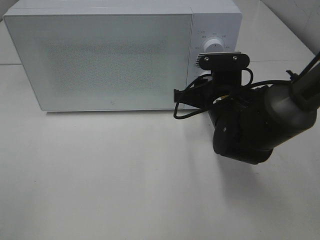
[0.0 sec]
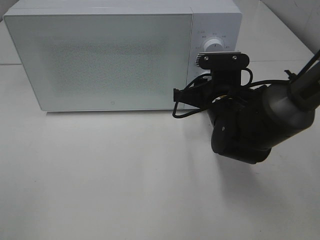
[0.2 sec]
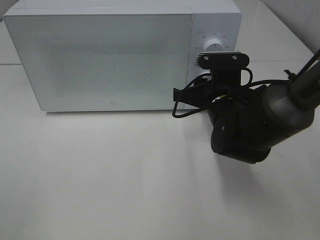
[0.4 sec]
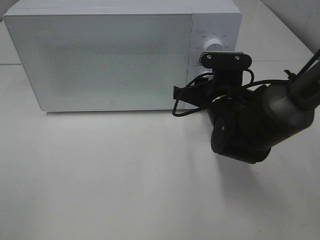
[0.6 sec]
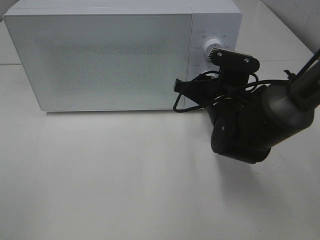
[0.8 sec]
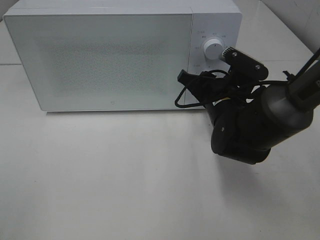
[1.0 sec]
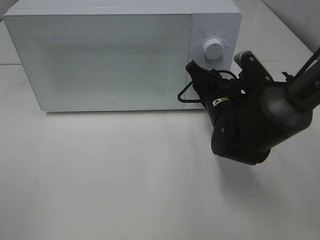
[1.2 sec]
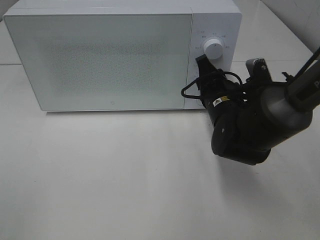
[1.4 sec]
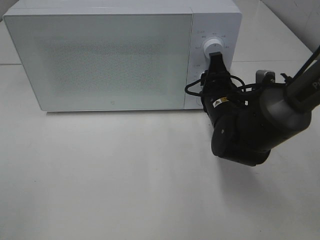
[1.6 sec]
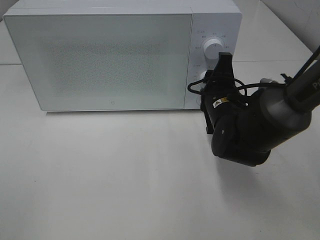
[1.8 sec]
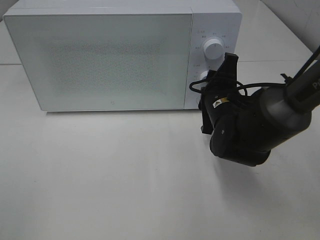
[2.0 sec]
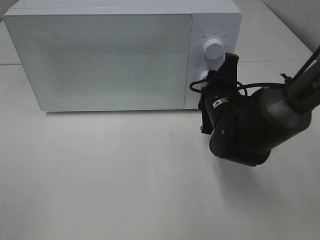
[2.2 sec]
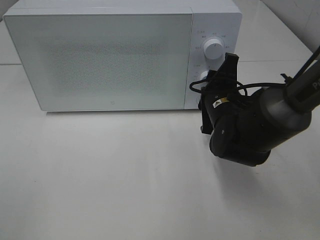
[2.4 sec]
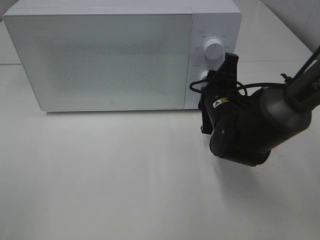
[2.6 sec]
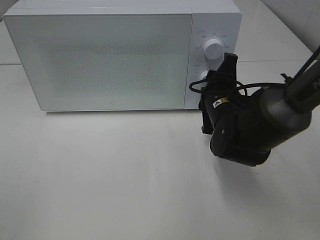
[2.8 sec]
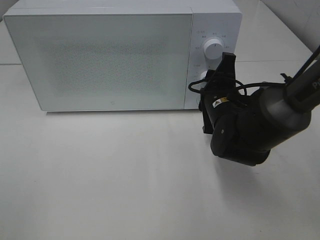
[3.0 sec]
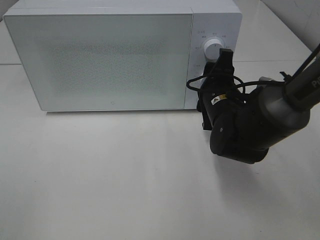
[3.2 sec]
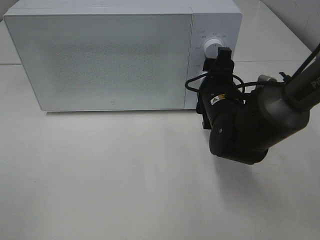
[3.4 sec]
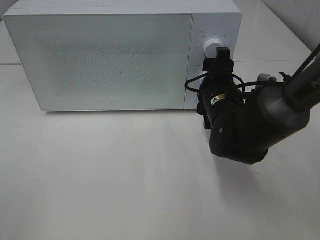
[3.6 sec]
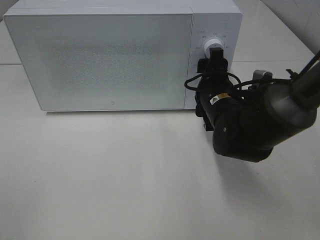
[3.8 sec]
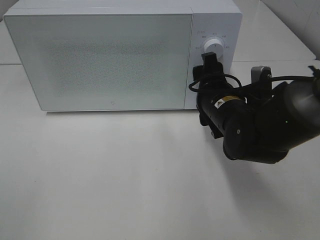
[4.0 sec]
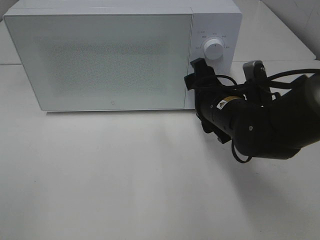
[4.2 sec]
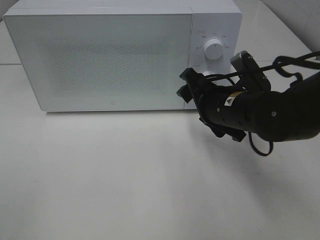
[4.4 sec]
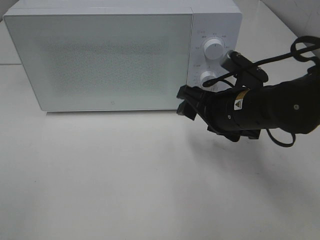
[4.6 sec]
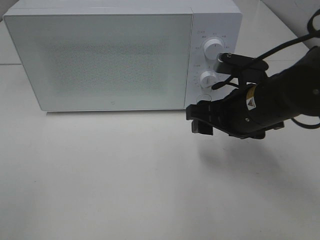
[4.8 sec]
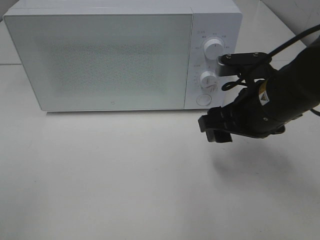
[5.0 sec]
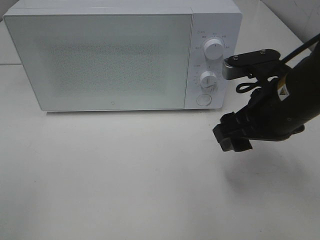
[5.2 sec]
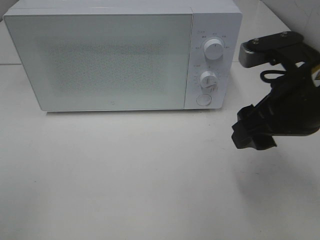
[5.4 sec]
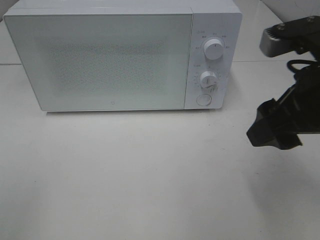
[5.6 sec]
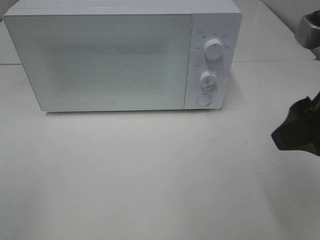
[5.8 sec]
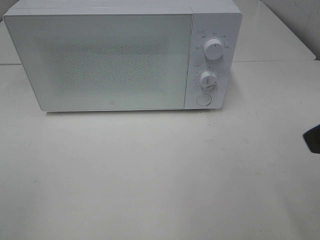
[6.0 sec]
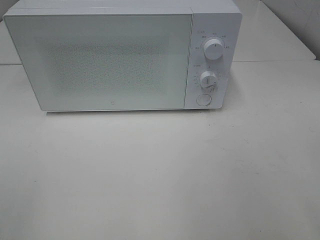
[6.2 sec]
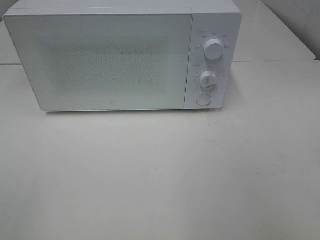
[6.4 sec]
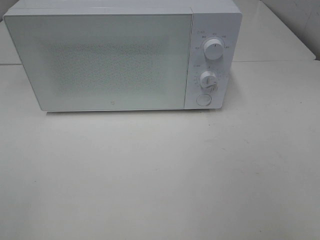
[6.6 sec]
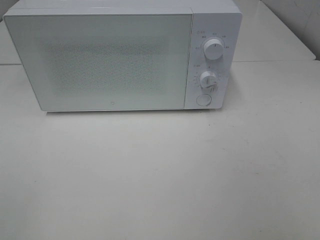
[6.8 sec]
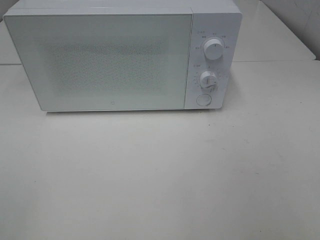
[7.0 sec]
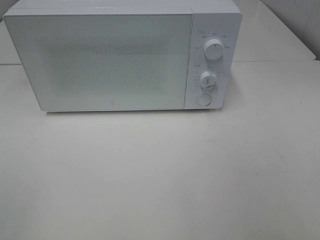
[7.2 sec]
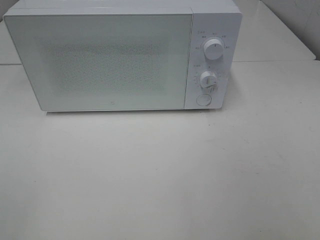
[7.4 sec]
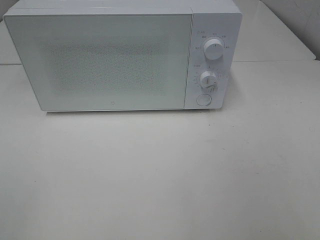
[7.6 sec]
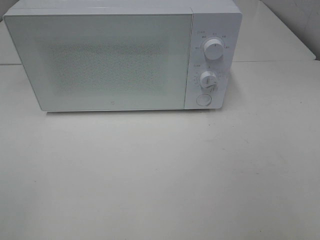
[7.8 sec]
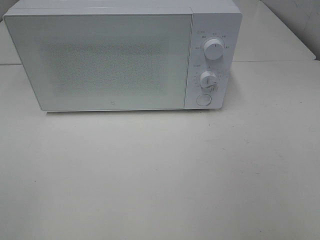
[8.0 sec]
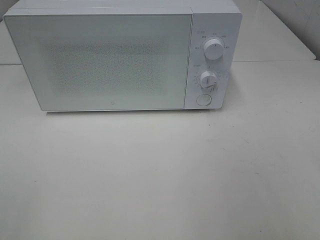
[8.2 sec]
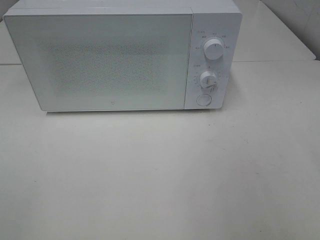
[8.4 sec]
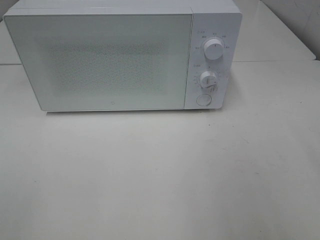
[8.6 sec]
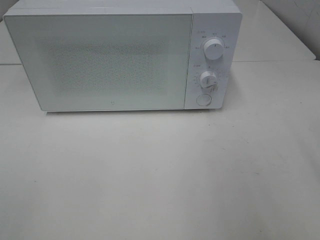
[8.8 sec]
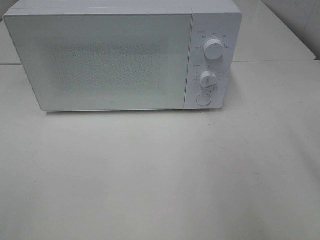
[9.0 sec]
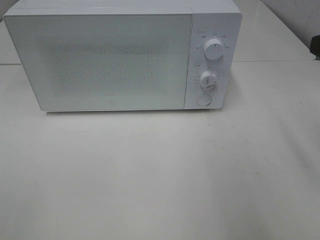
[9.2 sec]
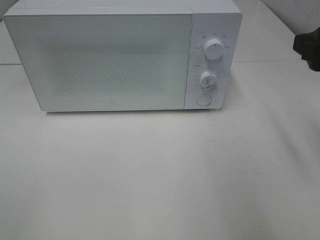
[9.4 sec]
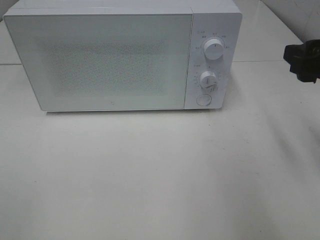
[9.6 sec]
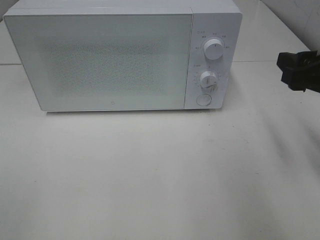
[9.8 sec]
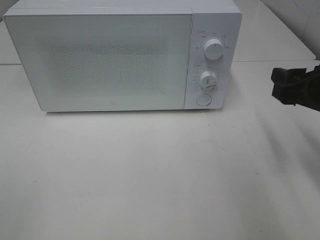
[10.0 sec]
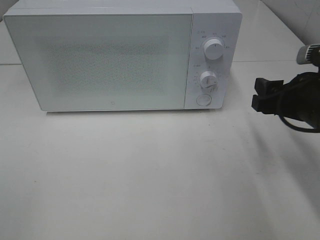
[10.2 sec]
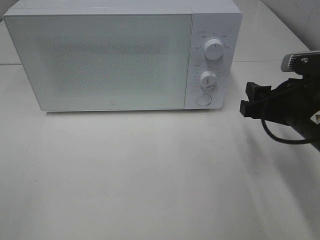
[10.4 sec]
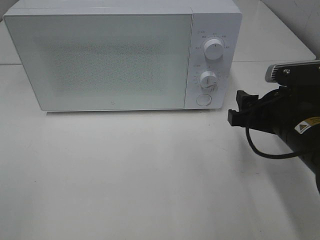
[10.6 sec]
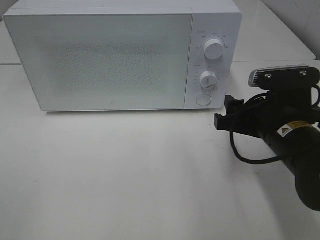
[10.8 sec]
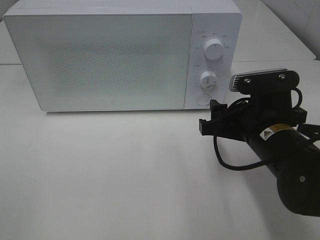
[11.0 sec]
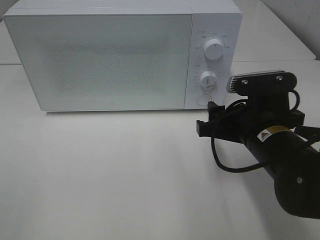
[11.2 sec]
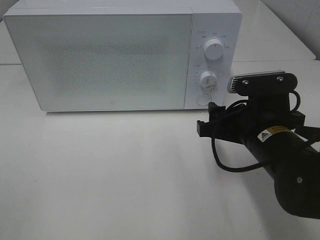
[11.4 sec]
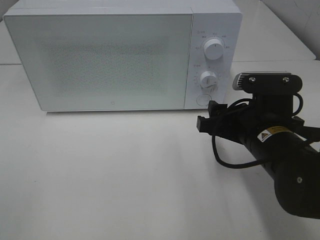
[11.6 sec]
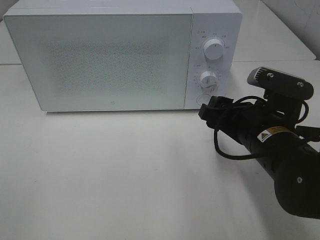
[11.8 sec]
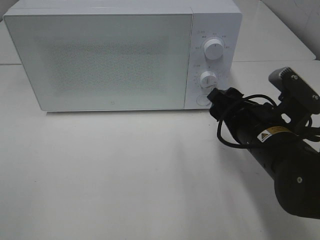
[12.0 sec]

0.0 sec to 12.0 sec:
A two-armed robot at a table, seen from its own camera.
Task of the whole recording: Heat Sandwich.
Step, 0.0 sec to 4.0 sec: Right hand: twist timer button.
1.6 sec to 3.0 sec: There are only small adjustments of the grippers.
4.4 sec to 6.0 sec: The right gripper goes about 25 cm upward, backward and to the right.
9.0 sec to 10.4 sec: The right gripper shifts approximately 15 cm downward and forward.
10.4 sec to 12.0 sec: The right gripper travels to the left by approximately 5 cm.

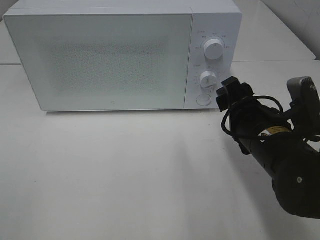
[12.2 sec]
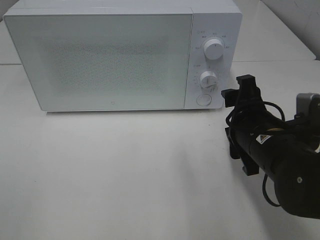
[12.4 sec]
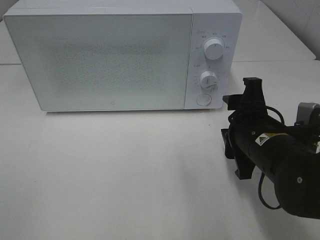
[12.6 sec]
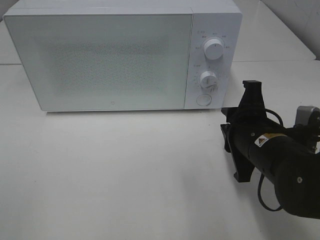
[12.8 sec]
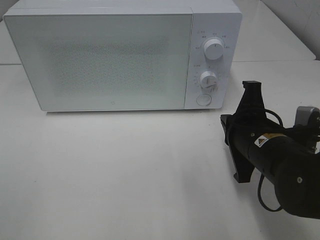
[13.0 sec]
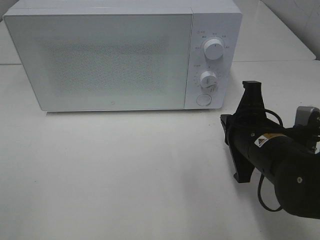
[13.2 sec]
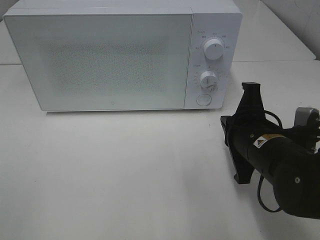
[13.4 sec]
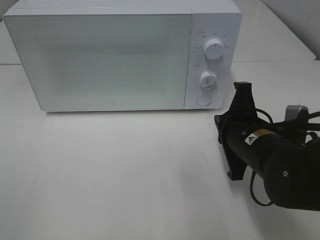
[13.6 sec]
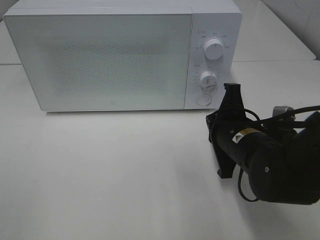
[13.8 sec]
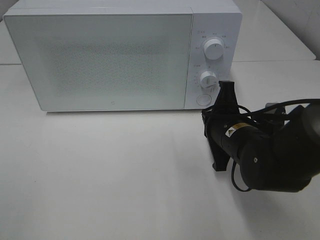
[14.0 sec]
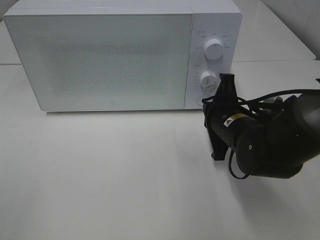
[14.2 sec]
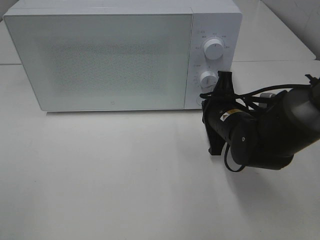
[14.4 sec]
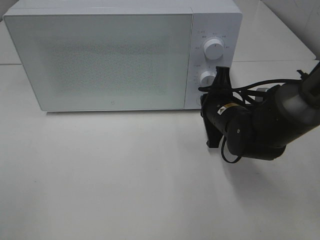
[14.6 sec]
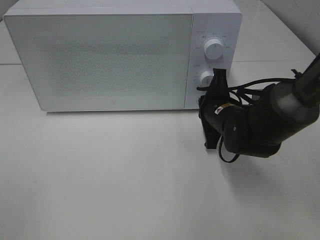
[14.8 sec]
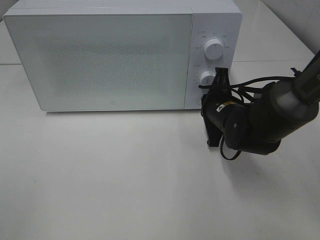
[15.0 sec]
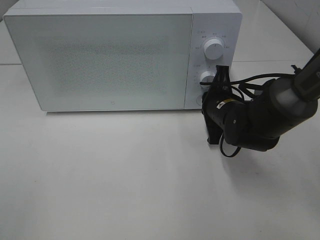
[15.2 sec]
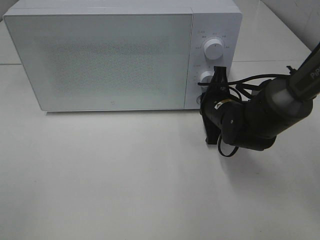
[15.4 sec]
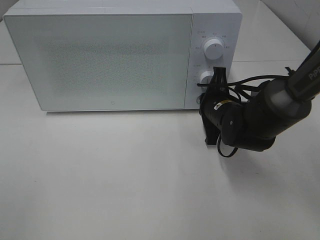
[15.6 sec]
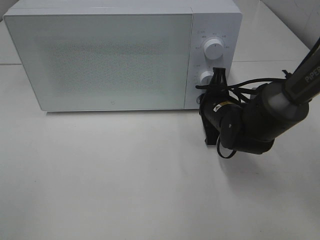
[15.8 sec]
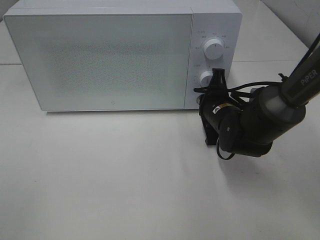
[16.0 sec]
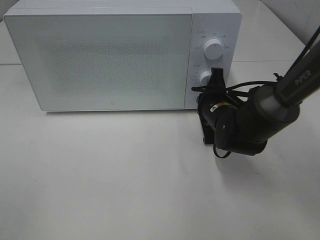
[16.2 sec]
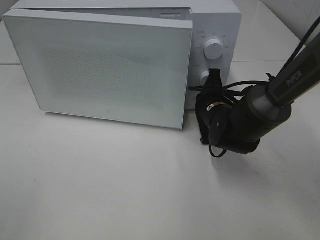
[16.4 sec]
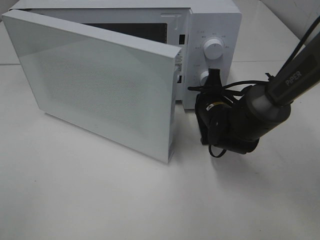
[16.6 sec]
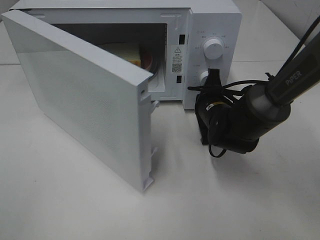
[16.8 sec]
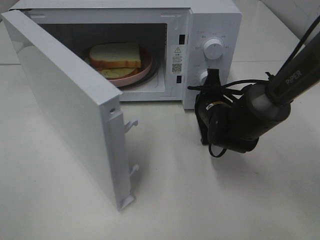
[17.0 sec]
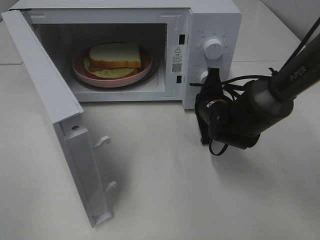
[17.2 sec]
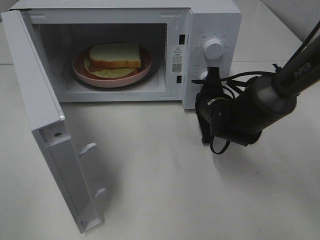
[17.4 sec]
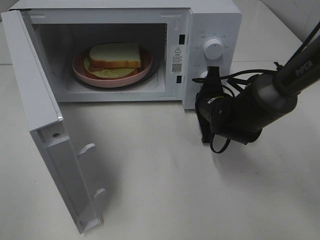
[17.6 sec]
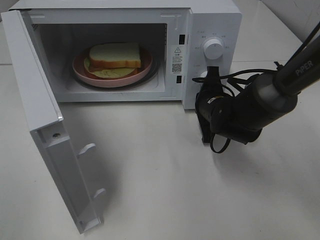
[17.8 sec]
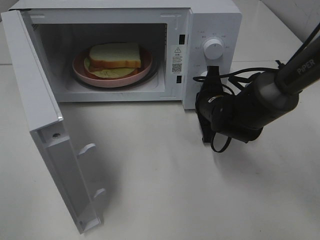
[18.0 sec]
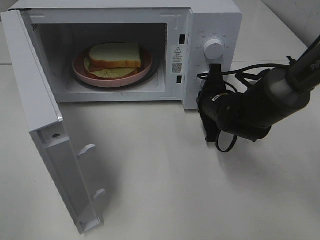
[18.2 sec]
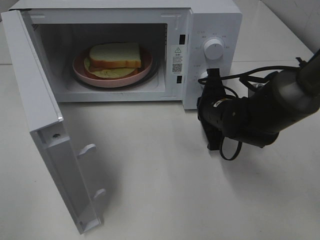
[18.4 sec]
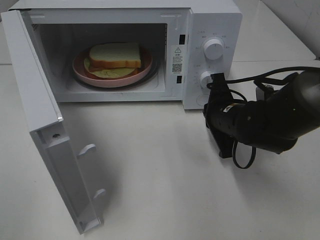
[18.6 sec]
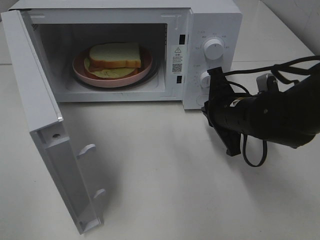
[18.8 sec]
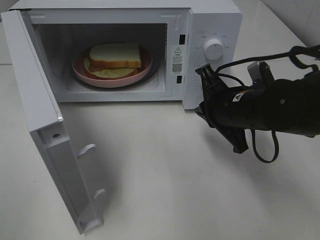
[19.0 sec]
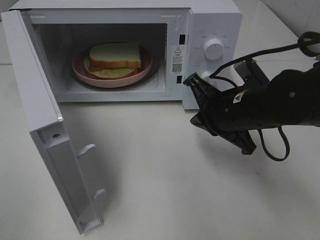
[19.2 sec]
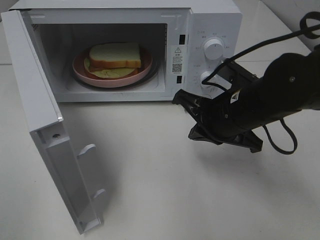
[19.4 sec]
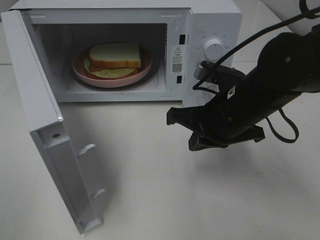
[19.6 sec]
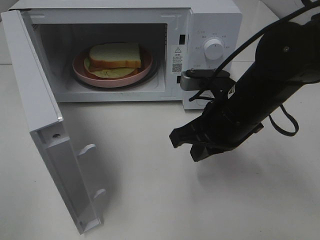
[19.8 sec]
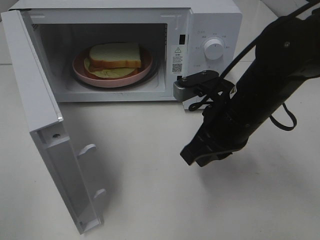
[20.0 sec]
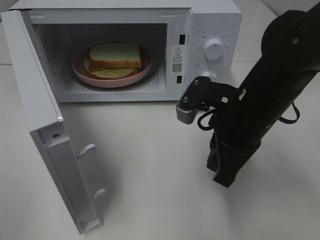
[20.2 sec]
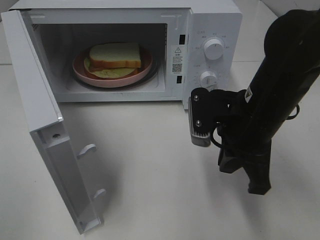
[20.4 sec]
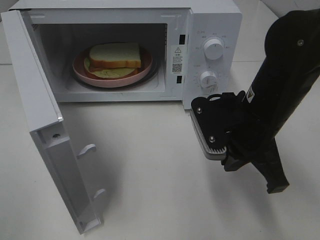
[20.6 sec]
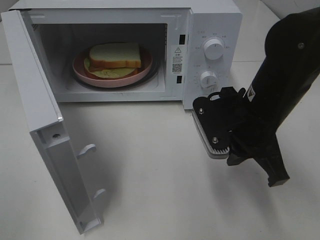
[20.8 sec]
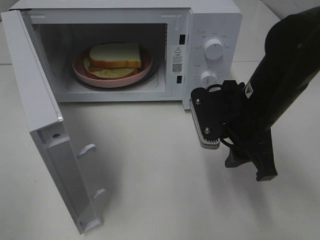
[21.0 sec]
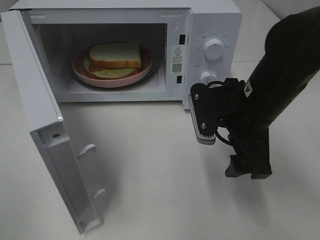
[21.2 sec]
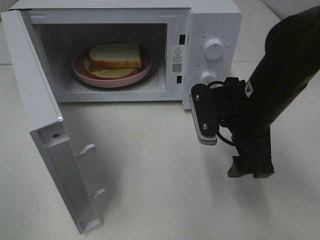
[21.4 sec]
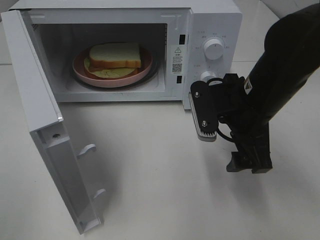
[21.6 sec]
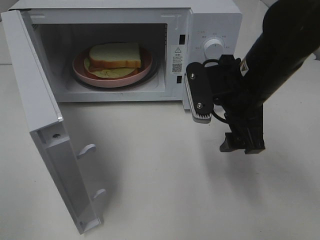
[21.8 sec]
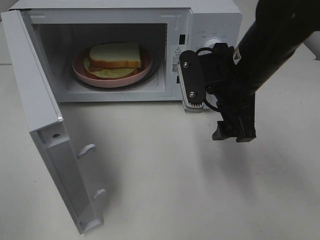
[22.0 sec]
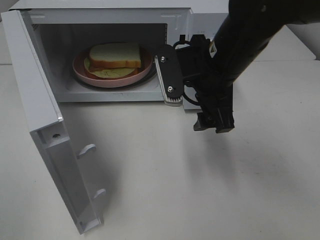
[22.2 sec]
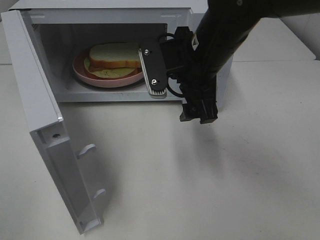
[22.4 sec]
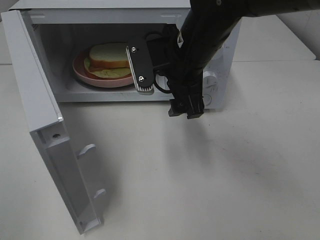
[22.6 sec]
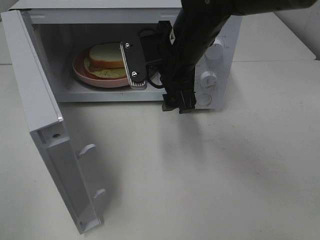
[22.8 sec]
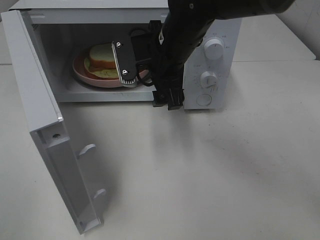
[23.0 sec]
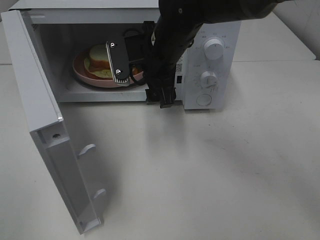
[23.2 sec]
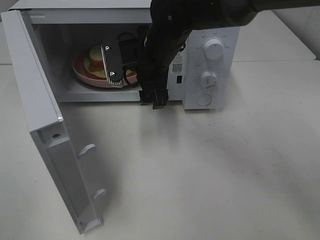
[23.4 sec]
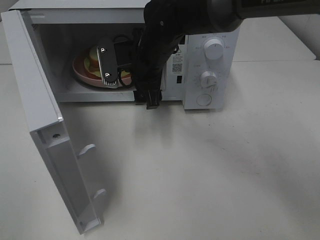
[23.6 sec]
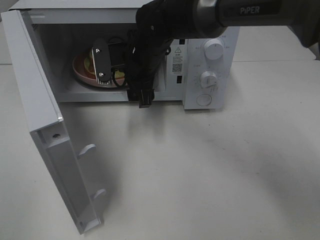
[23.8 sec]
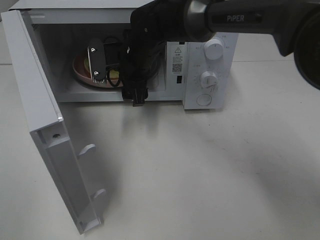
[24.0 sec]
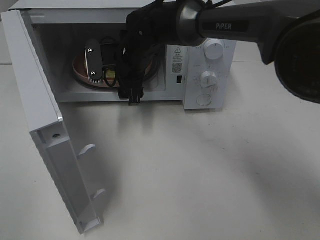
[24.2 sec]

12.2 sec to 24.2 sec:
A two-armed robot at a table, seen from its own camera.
Task of the whole recording: Heat Sandwich.
Step, 12.2 sec to 18.4 sec: Right hand: press the switch.
12.2 sec to 13.8 sec: The right gripper closes.
13.8 sec to 15.2 sec: The right gripper is displaced forward by some 10 cm.
15.2 sec to 16.6 sec: The grippers move only a little.
18.2 sec to 19.8 sec: The right gripper travels backward and upward by approximately 10 cm.
19.8 sec to 21.2 sec: The right gripper opens its fingers.
21.2 sec to 22.6 sec: The right gripper shifts roughly 10 cm to the left and forward.
22.6 sec to 24.2 sec: The right gripper heads forward, to the left and downward, covering some 15 cm.
